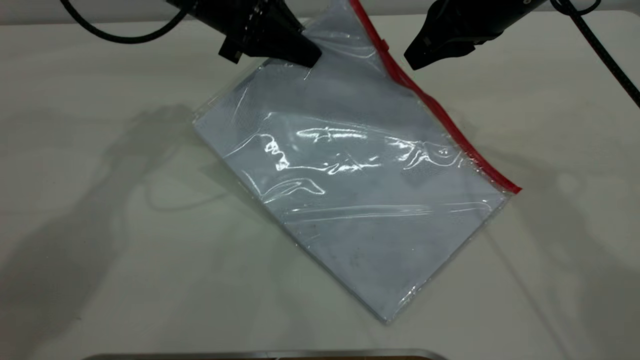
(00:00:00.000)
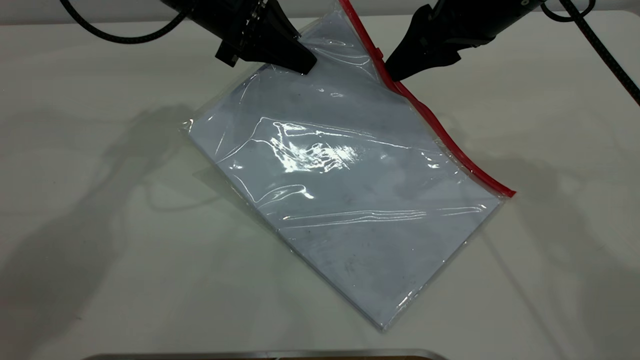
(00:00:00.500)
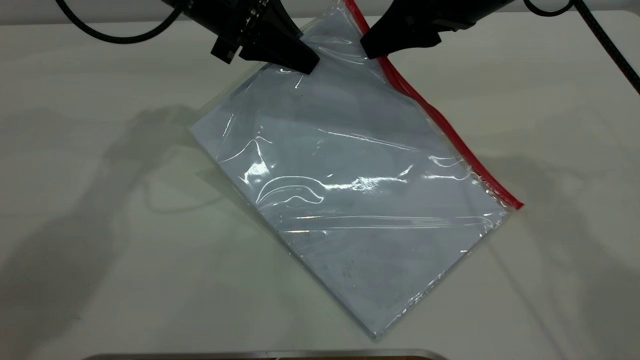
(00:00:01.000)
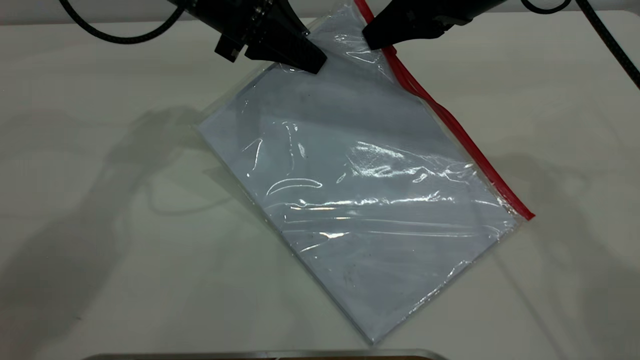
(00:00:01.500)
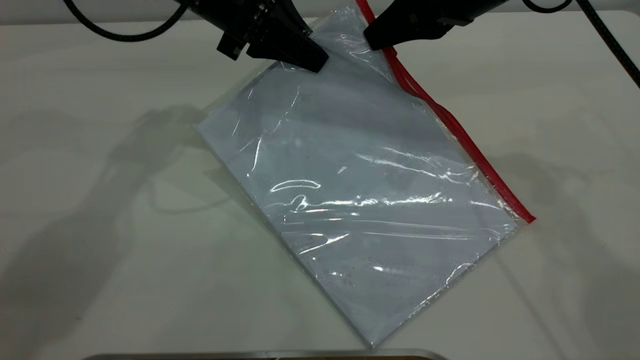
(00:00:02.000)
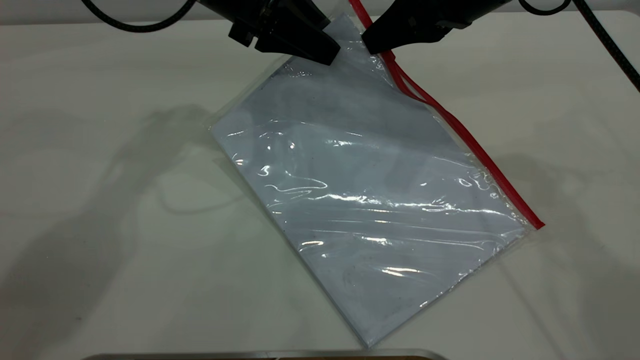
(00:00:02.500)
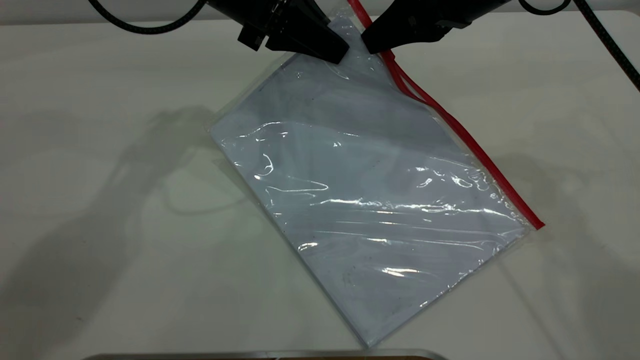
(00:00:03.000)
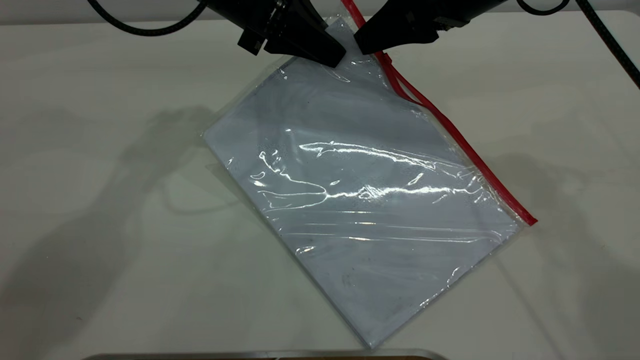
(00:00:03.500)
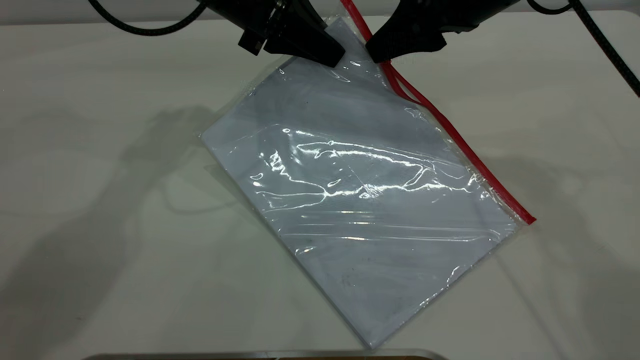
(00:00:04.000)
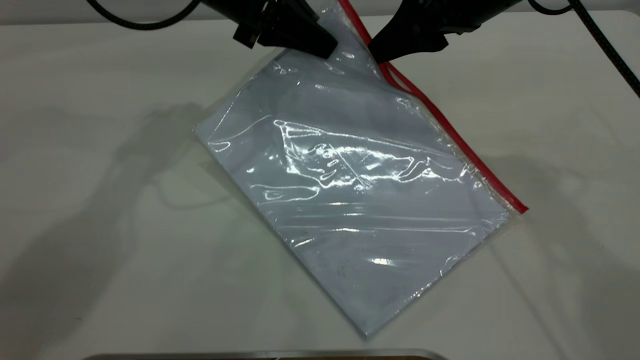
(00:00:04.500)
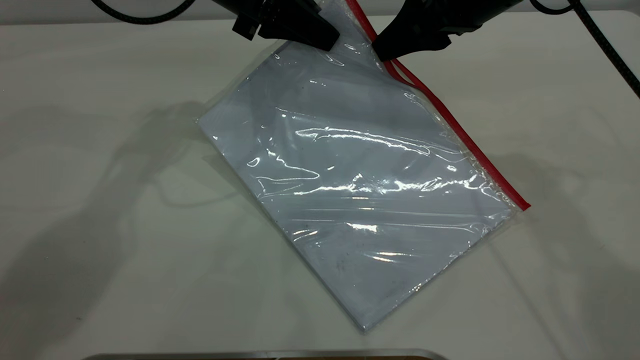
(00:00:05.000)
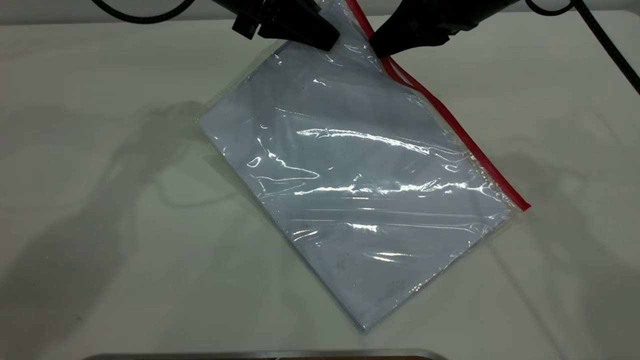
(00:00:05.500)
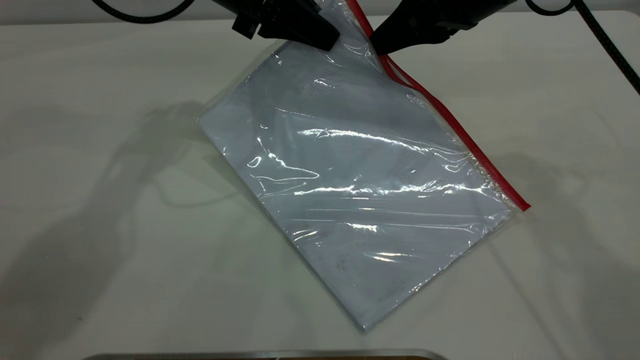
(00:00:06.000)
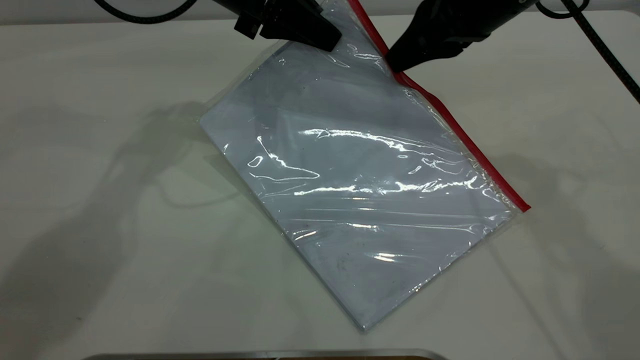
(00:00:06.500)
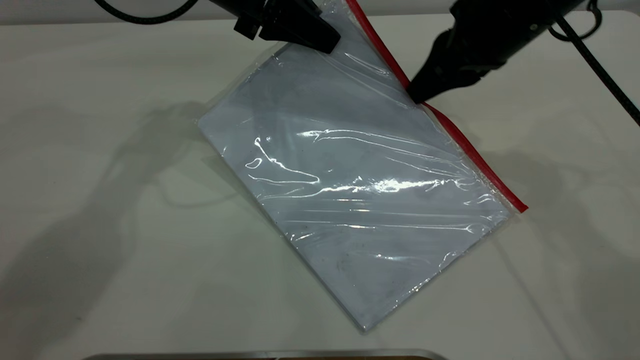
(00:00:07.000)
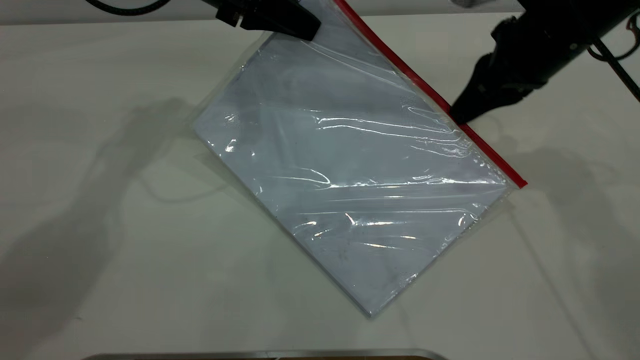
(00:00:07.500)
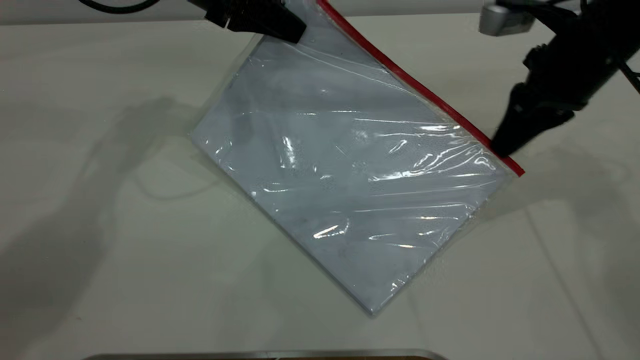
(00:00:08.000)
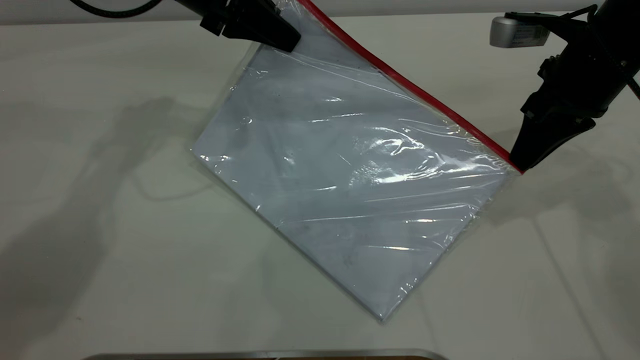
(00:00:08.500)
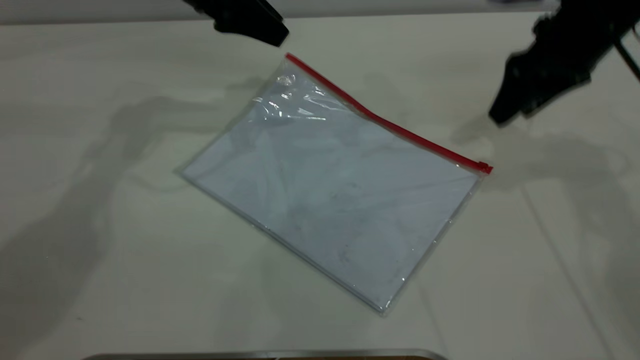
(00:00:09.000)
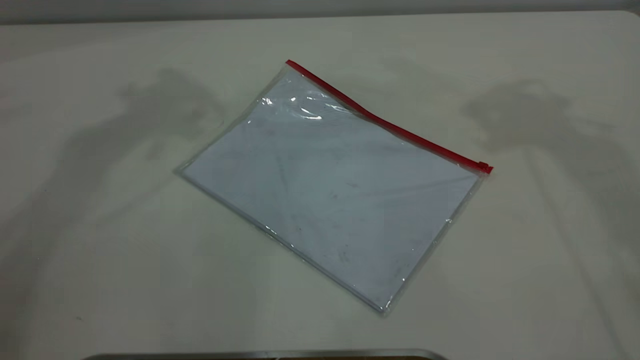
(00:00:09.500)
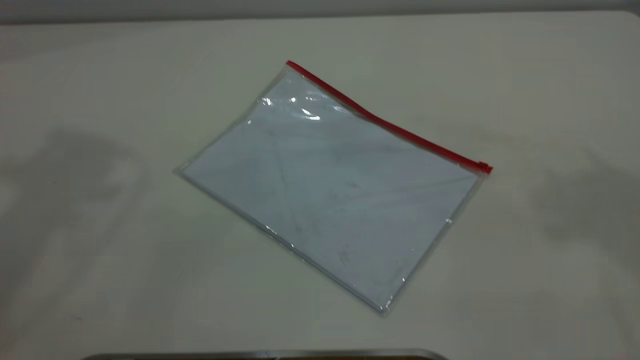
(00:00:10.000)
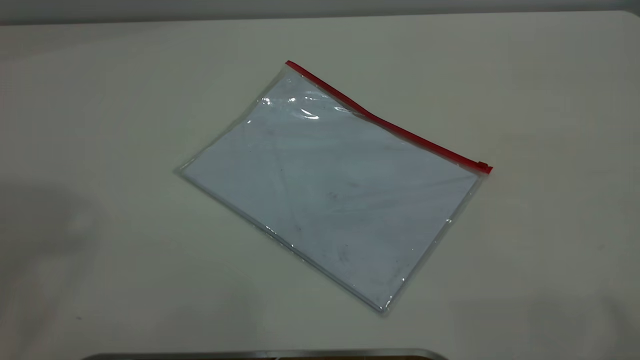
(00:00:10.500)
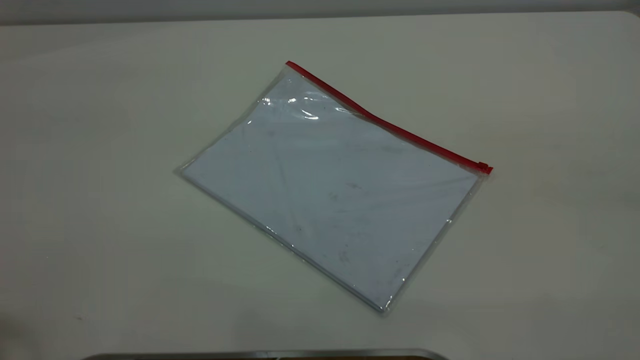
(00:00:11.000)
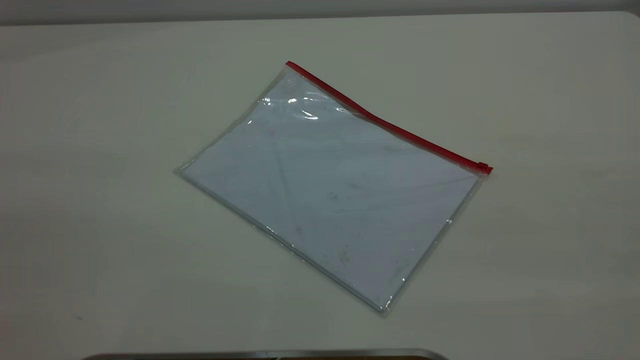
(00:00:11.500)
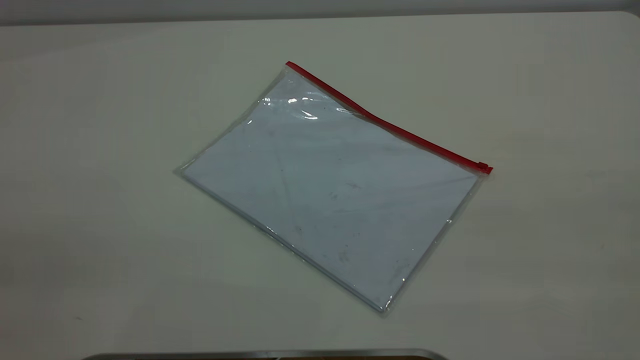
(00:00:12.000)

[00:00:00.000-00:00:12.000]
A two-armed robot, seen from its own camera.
Step, 00:00:00.000 to 00:00:08.500: Pulling up the zipper on the transparent plastic bag with the right gripper to close it.
00:00:00.000 to 00:00:02.000: The right gripper opens, then closes again.
00:00:02.000 to 00:00:04.000: The right gripper opens its fingers; the left gripper opens, then closes again.
00:00:04.000 to 00:00:06.000: The right gripper closes up.
00:00:06.000 to 00:00:08.000: The right gripper shifts approximately 10 cm to the right and downward.
00:00:08.000 to 00:00:10.000: The left gripper shifts about 40 cm upward and backward, and opens up. The right gripper moves upward, some 40 cm, and opens.
